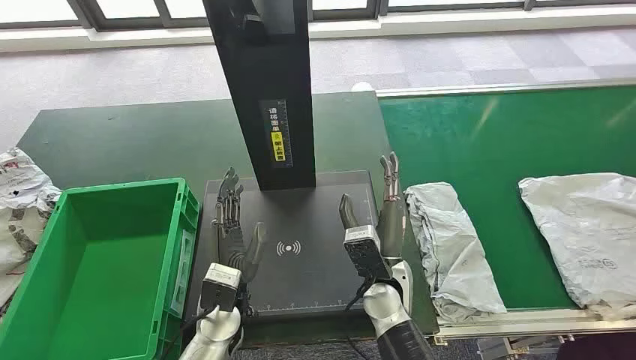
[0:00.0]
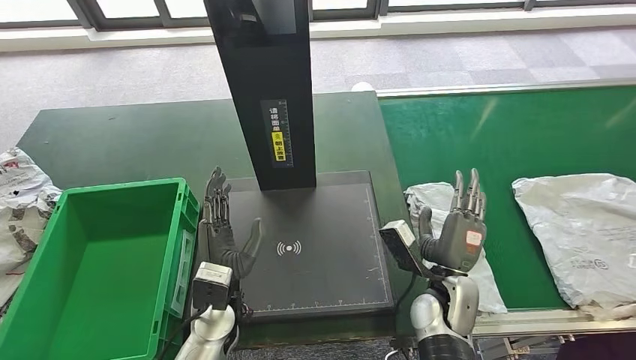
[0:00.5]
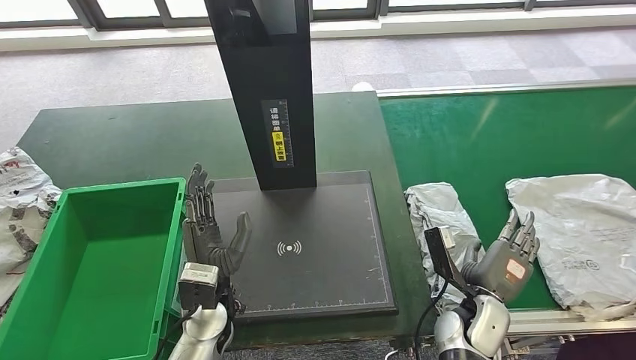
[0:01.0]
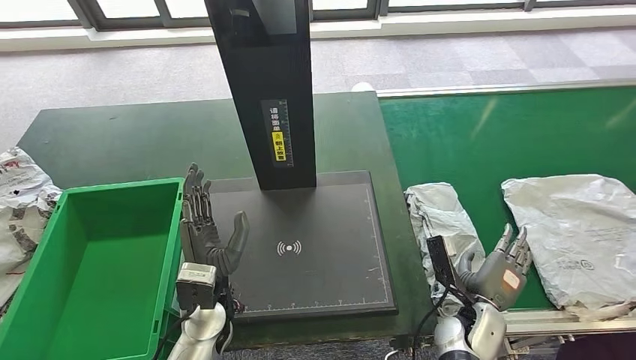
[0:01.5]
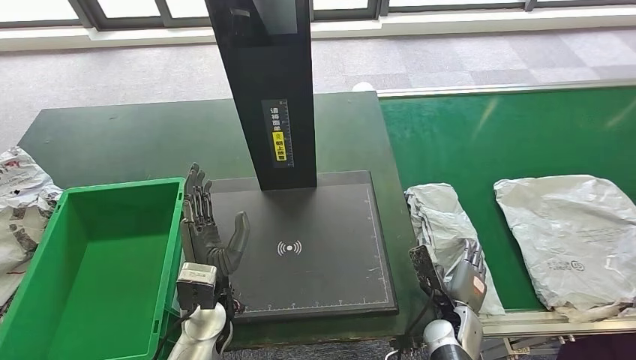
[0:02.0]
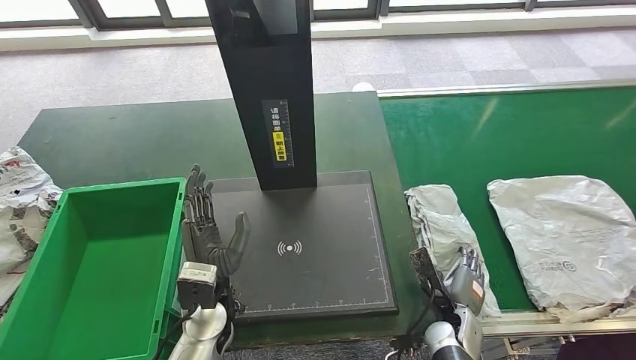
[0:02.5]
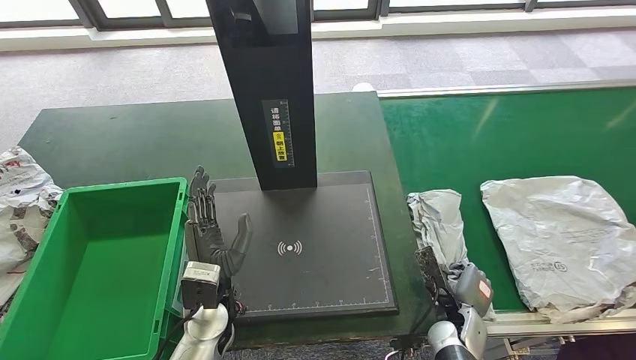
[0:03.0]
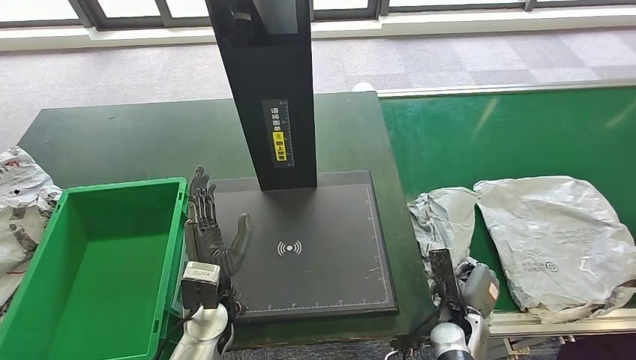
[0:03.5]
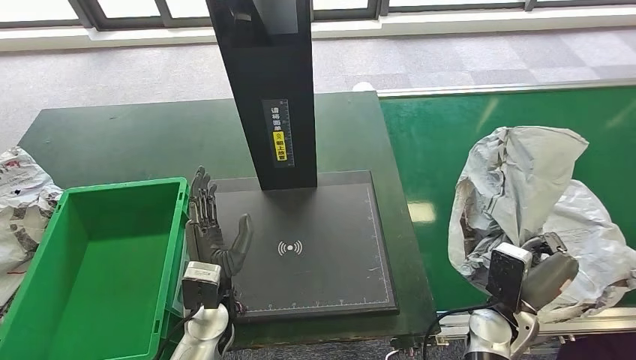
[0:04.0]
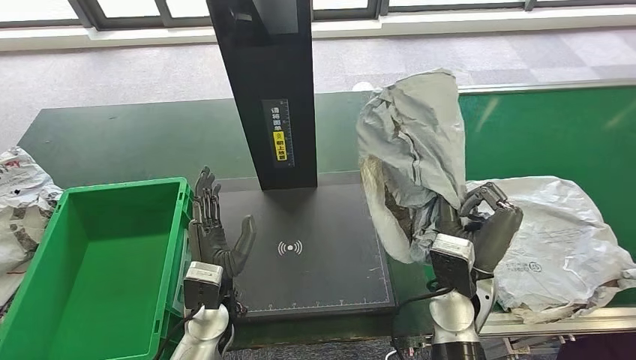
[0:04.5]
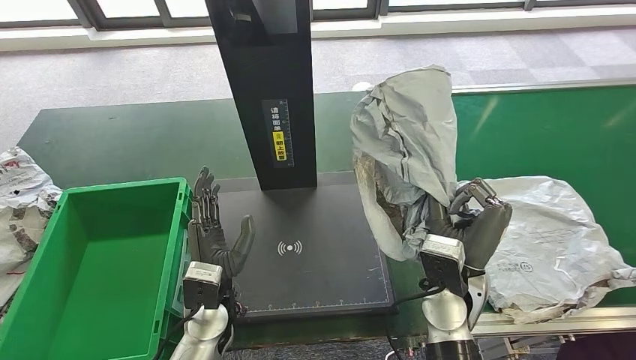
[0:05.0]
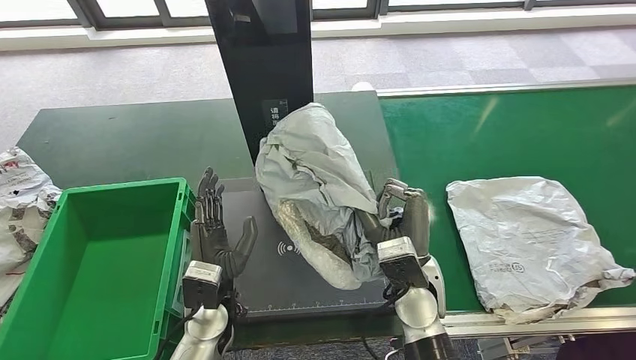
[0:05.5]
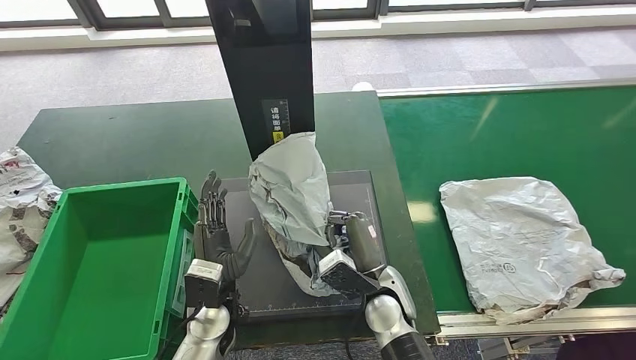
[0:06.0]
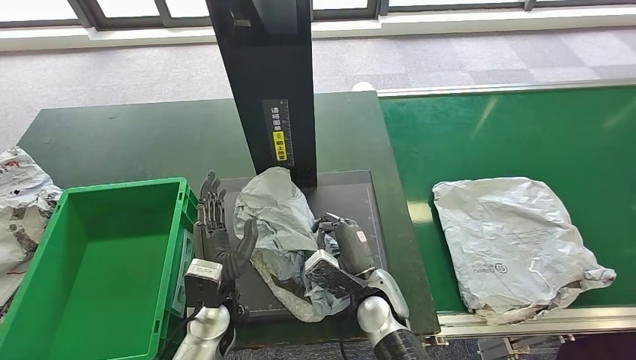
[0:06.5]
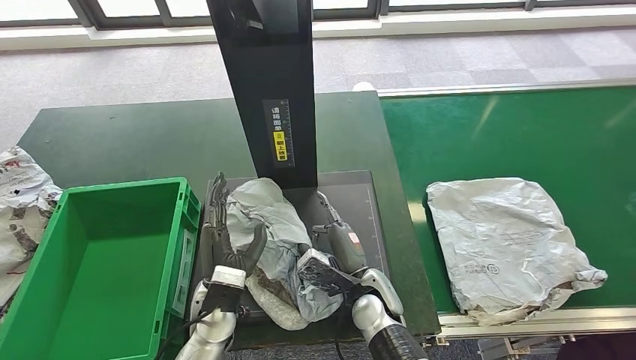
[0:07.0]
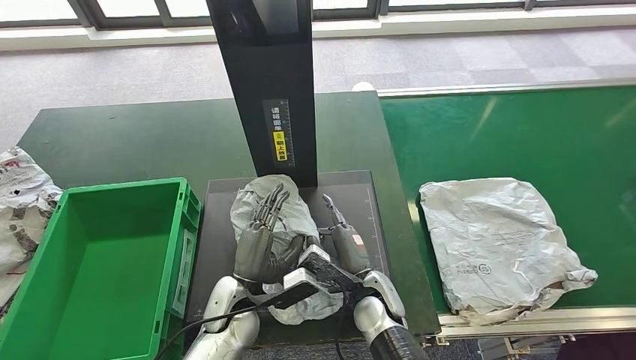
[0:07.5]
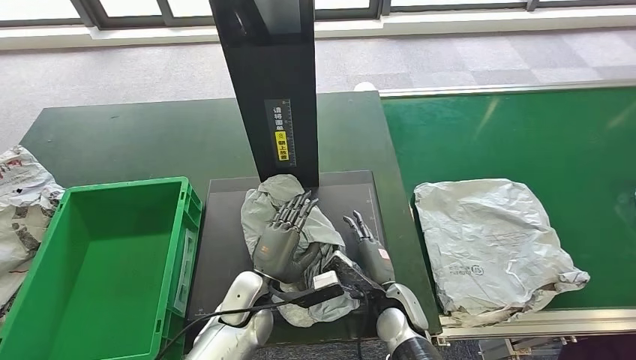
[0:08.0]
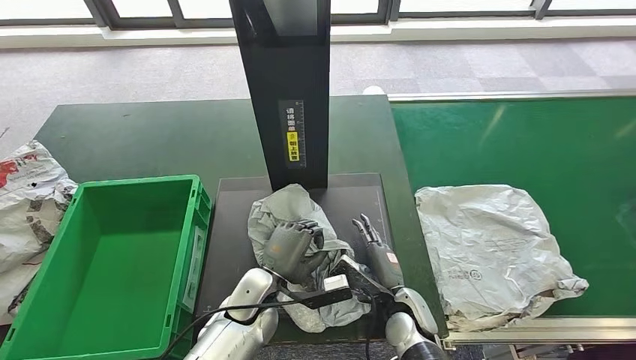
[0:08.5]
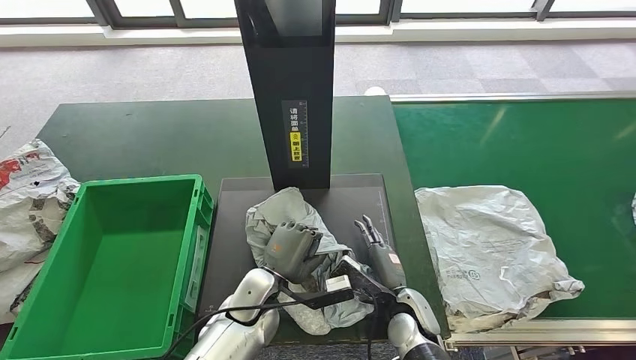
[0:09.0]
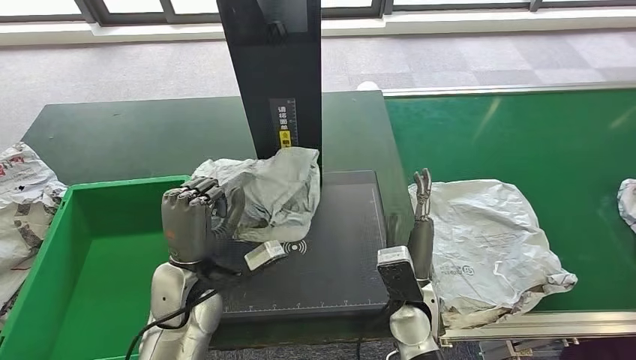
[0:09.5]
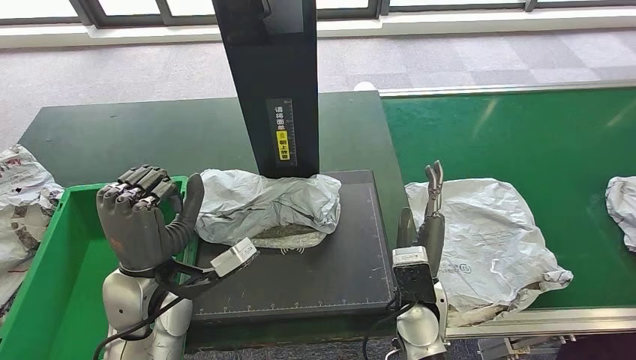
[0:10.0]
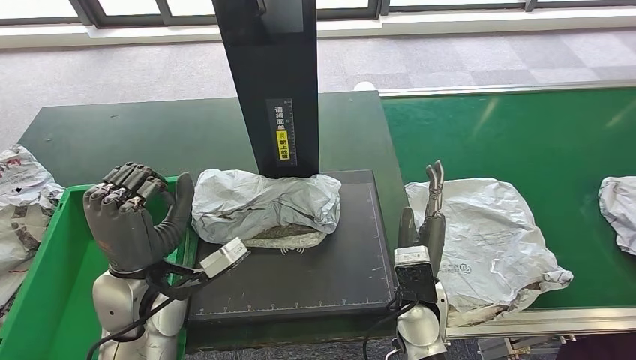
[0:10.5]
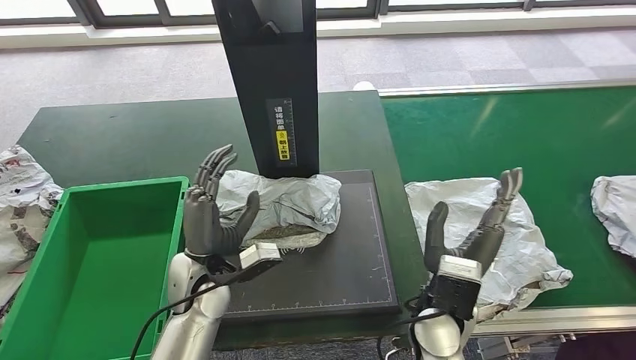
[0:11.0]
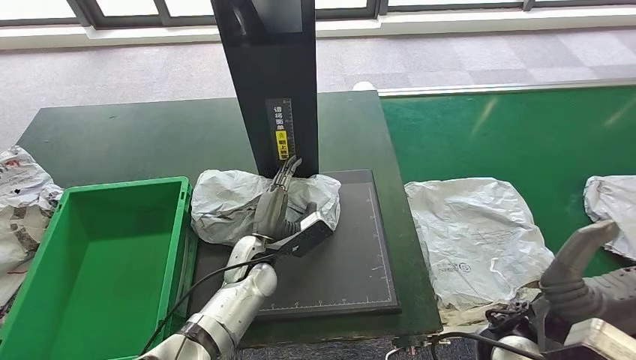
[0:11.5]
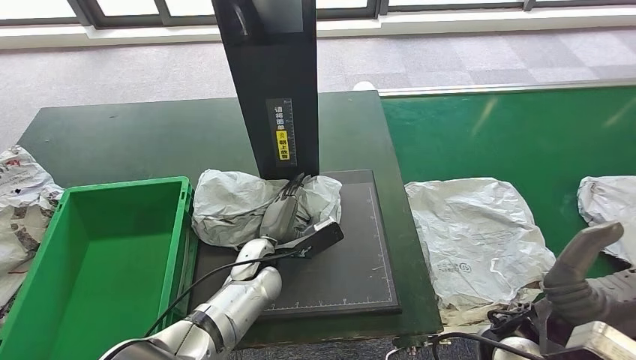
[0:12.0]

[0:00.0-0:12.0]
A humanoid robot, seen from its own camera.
Step, 0:00.0 to 0:04.0: Take the parcel off the conveyor belt.
Step, 0:04.5 to 0:07.5: Place the parcel onto the inbound machine.
0:02.0 to 0:04.0: The right hand goes about 10 cm upward.
0:10.0 to 0:12.0: The right hand moves to the right, upward and backward, about 15 cm. The left hand is displaced downward, to the right and forward by approximately 20 cm.

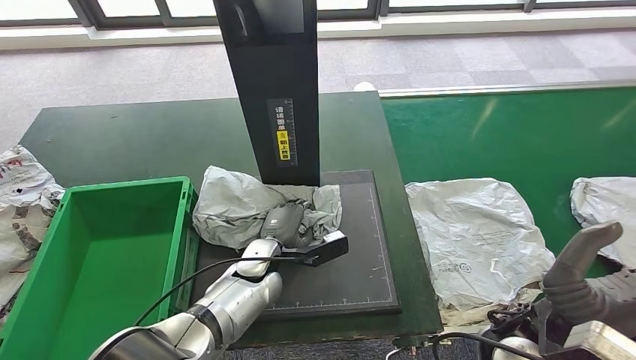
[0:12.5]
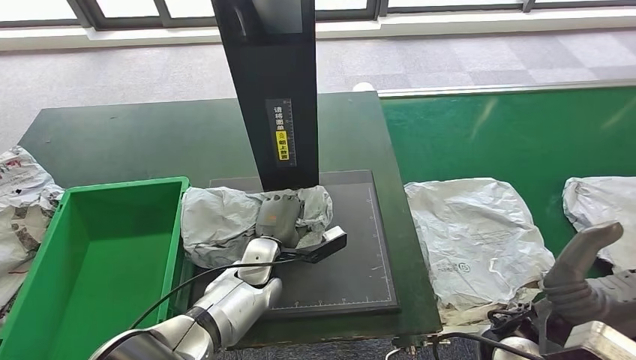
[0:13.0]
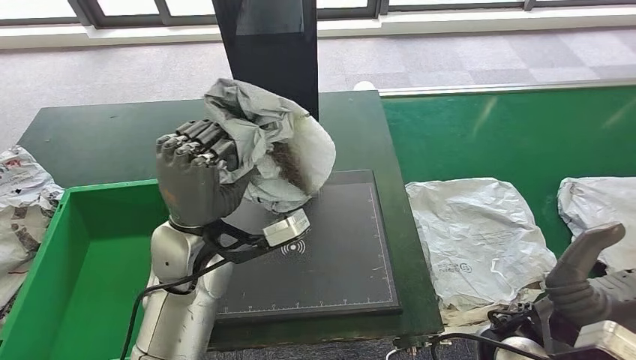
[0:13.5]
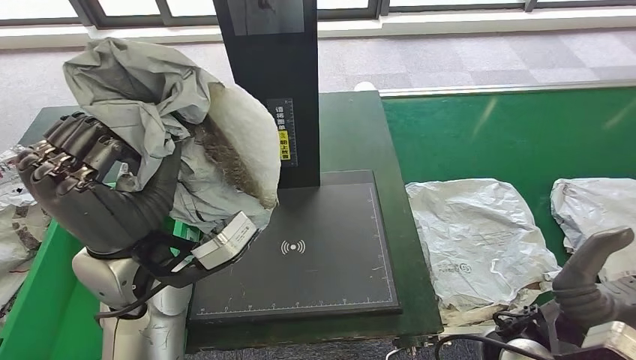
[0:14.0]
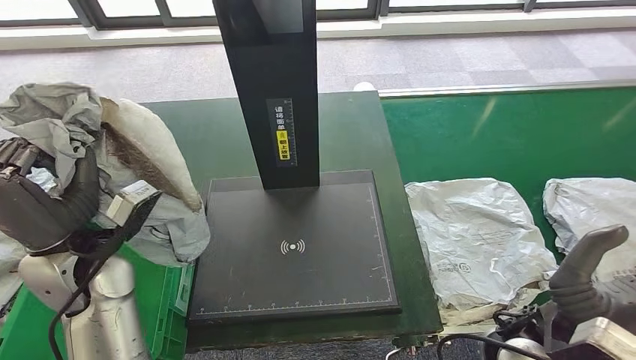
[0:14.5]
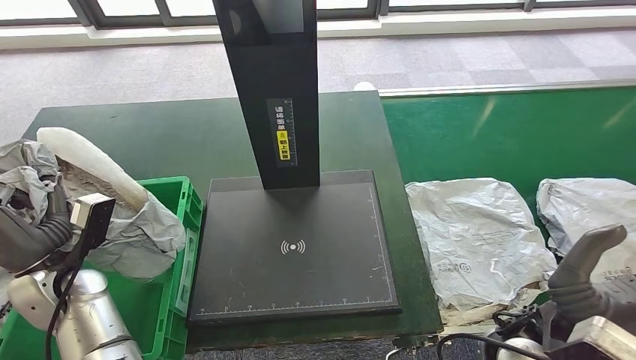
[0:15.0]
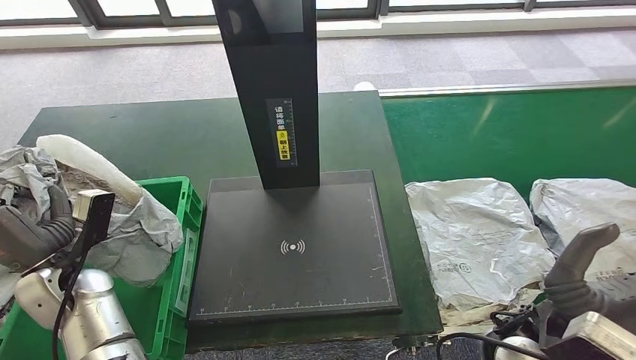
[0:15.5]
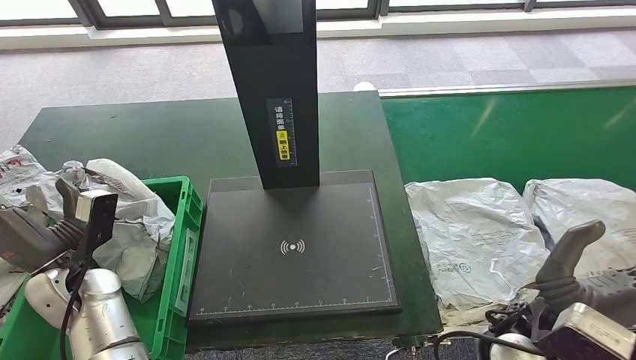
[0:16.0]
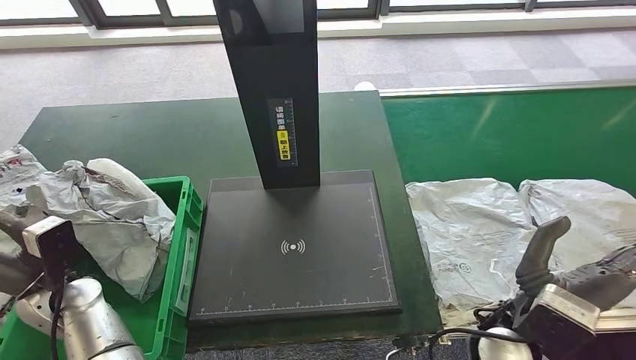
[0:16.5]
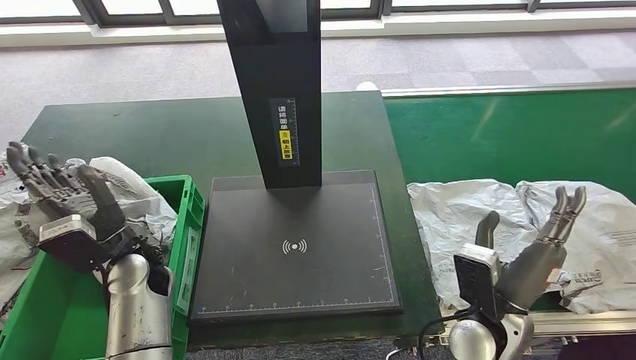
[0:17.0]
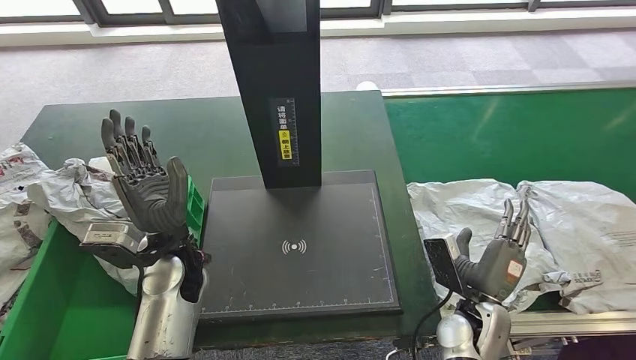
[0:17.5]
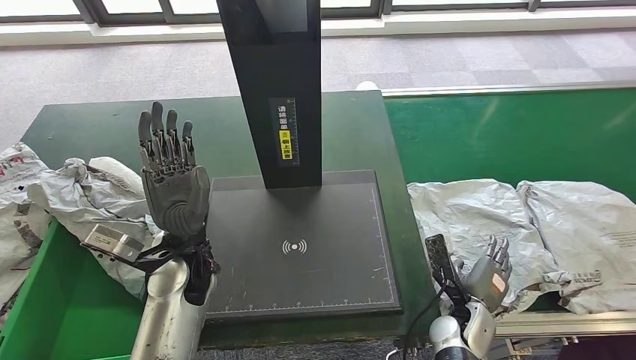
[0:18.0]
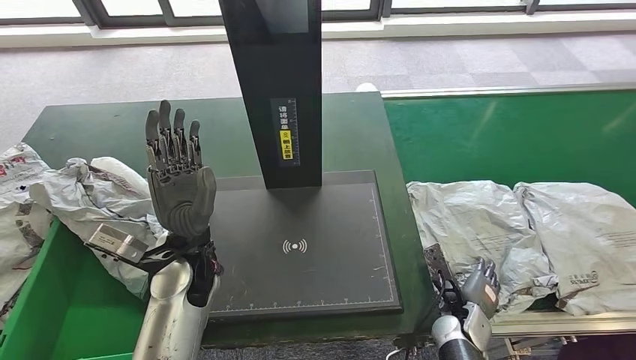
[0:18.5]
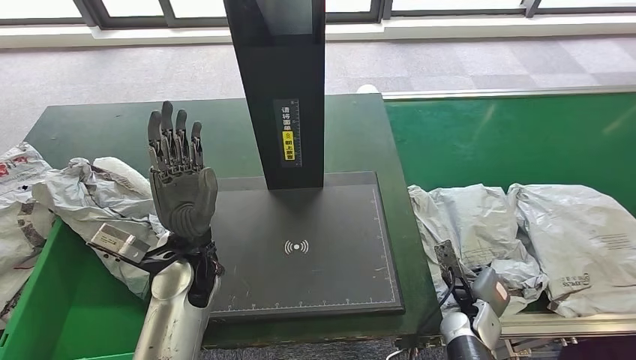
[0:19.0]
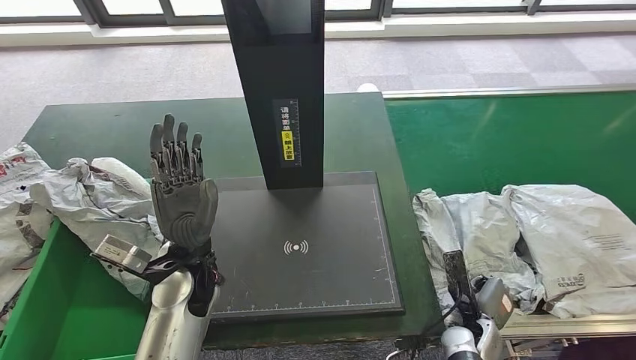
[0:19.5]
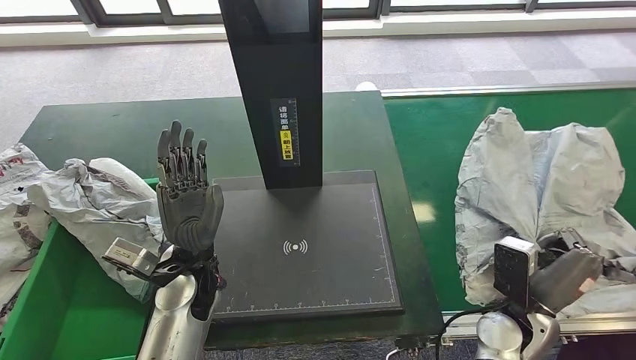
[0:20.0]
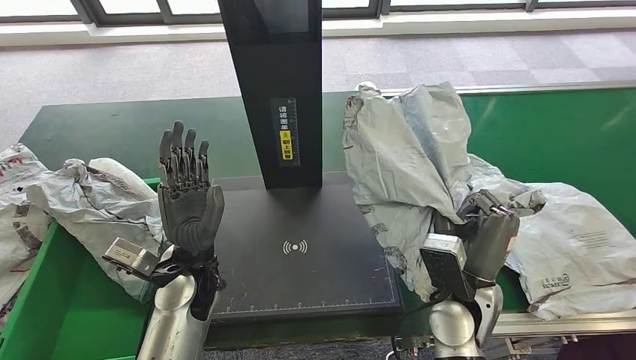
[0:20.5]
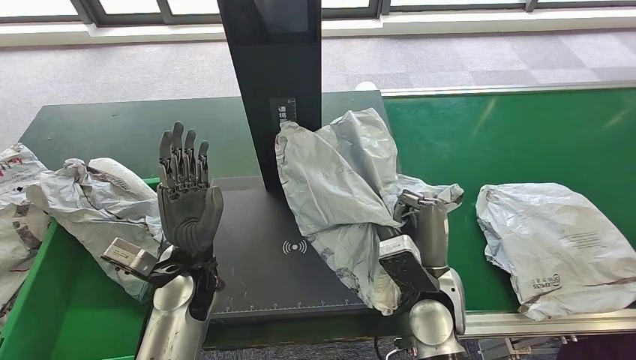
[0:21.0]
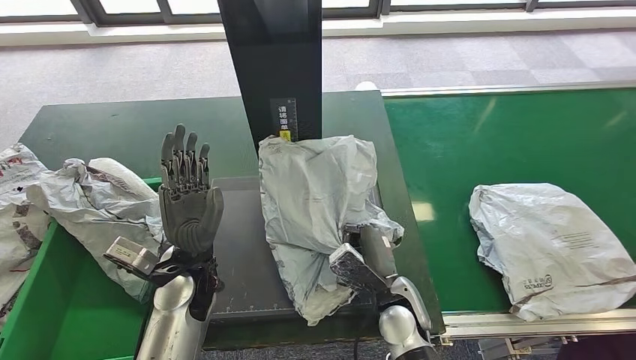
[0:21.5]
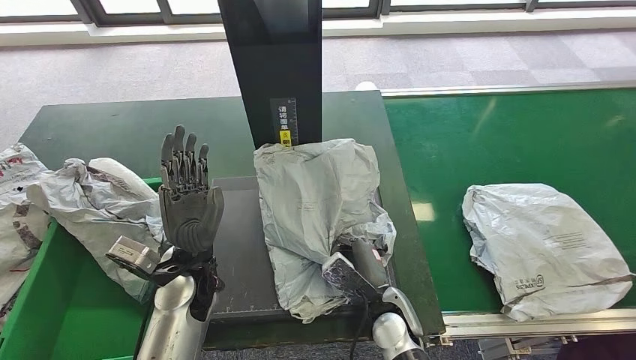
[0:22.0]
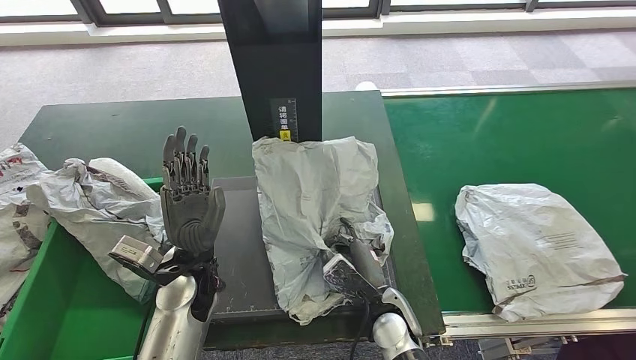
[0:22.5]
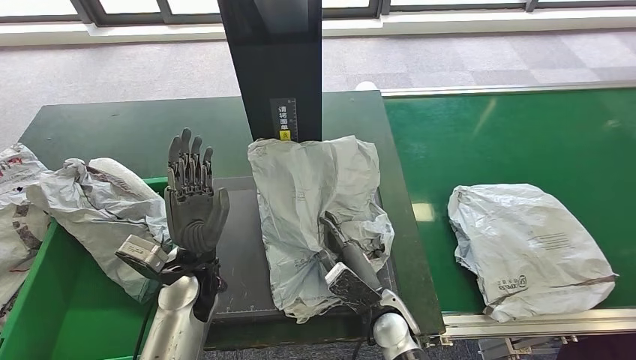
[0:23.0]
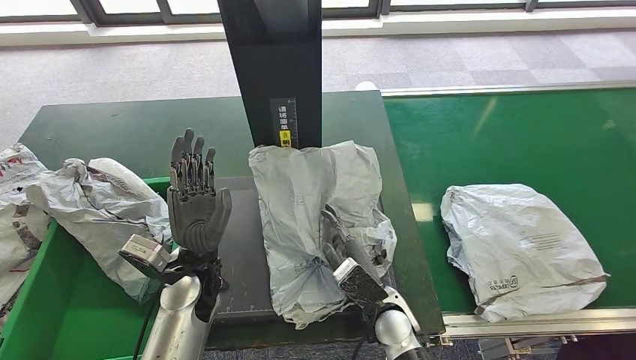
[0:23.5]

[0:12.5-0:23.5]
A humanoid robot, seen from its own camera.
Step, 0:14.5 to 0:17.0: Put the parcel inside the courier box.
Step, 0:17.5 to 0:20.5: Pick up the parcel from the conveyor belt.
